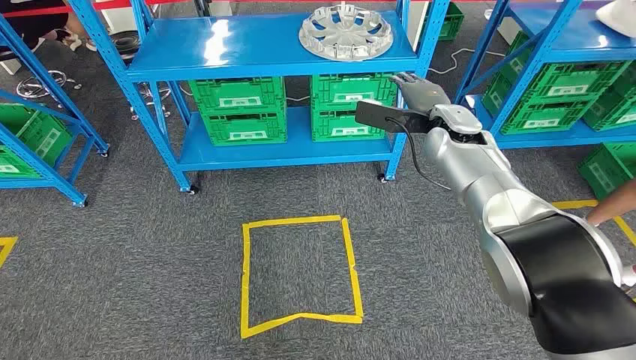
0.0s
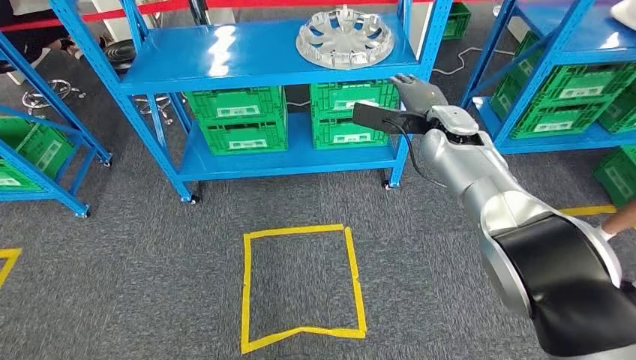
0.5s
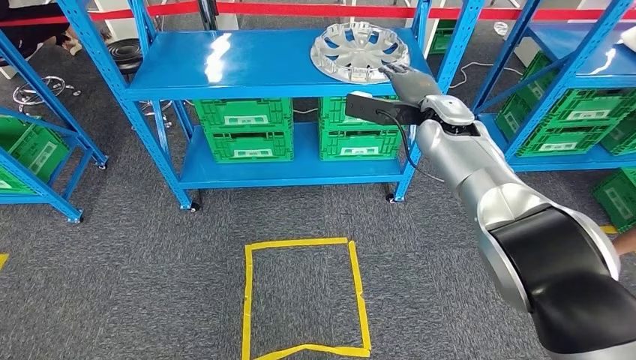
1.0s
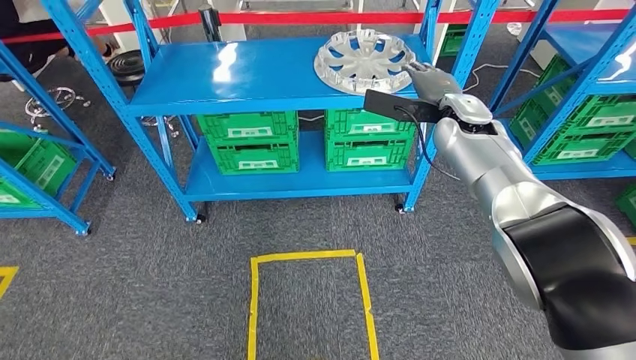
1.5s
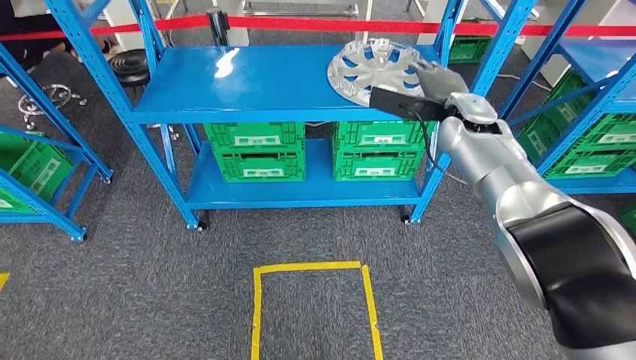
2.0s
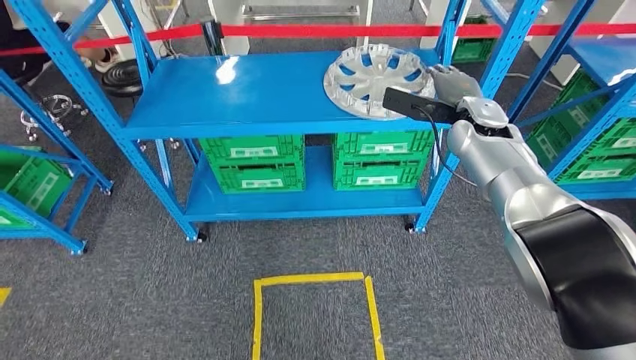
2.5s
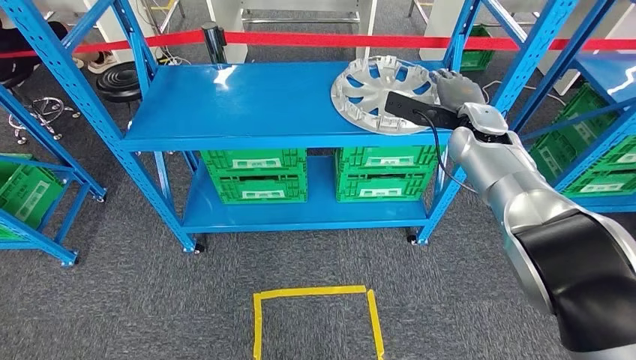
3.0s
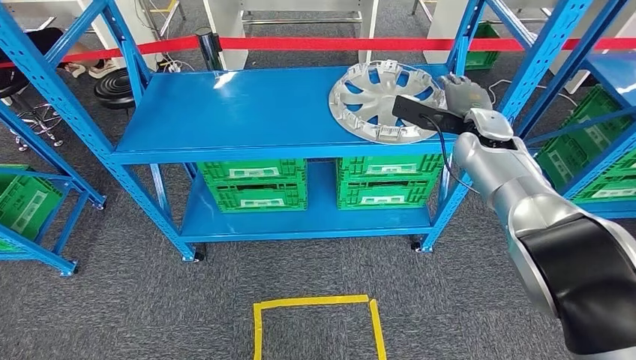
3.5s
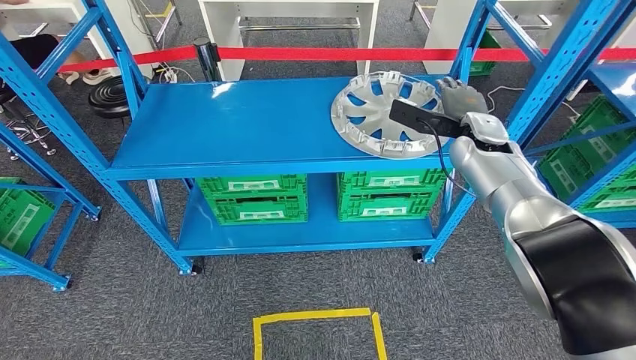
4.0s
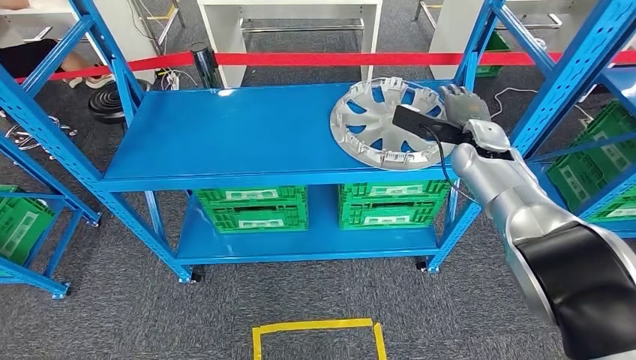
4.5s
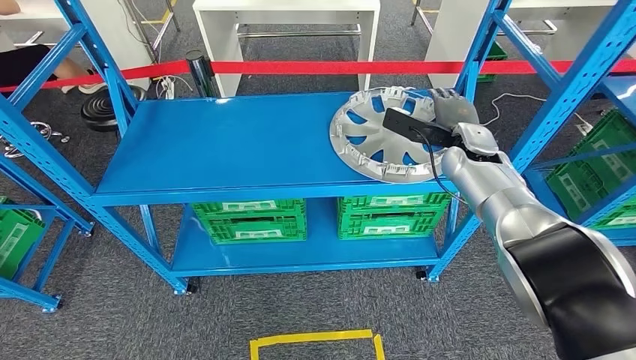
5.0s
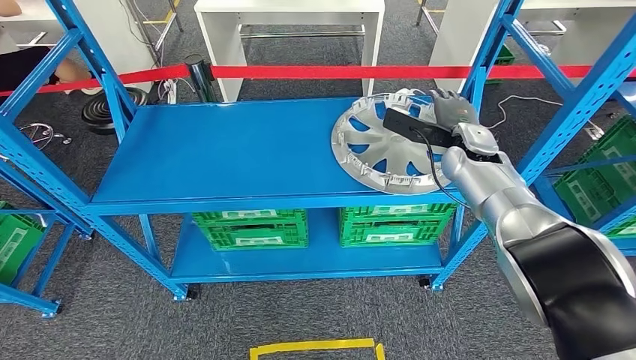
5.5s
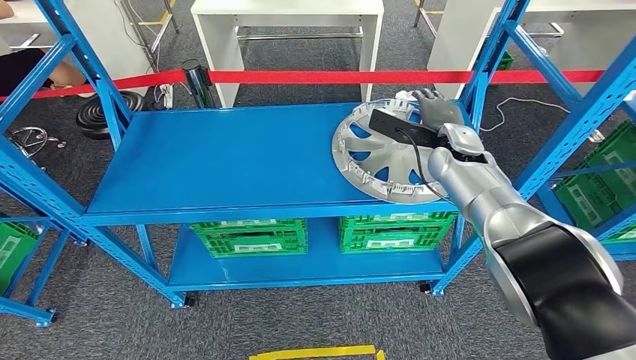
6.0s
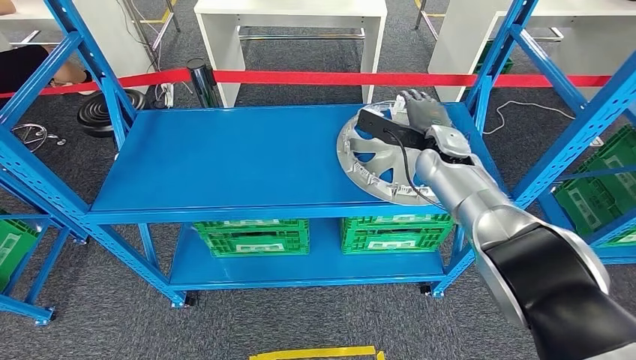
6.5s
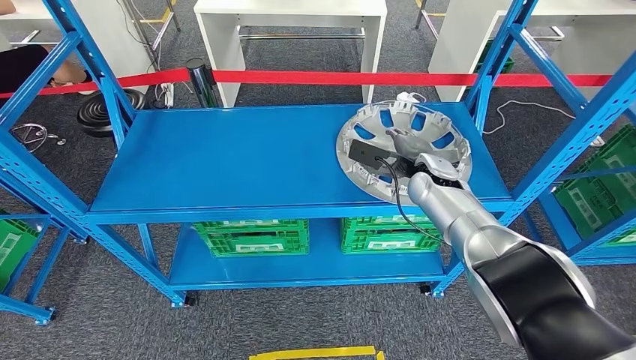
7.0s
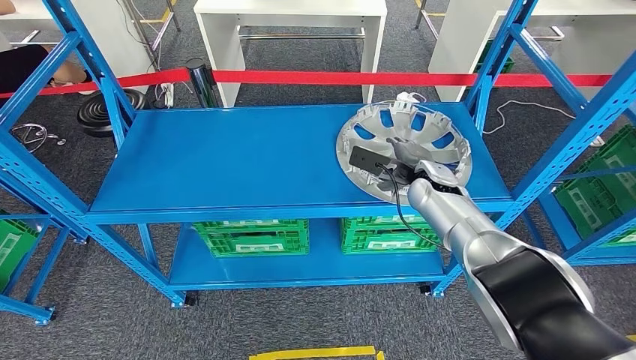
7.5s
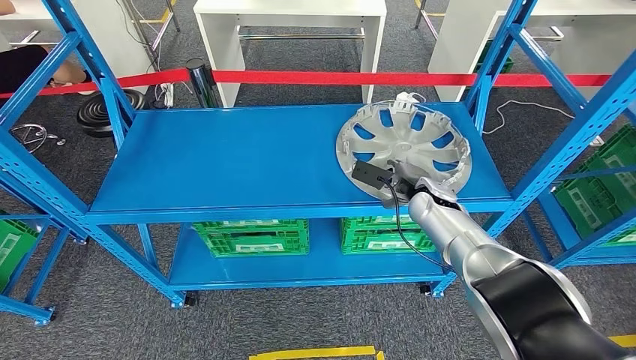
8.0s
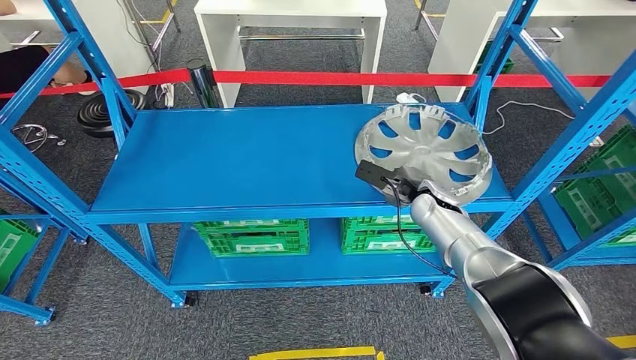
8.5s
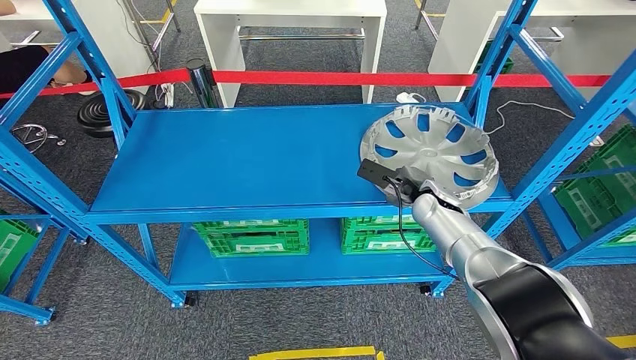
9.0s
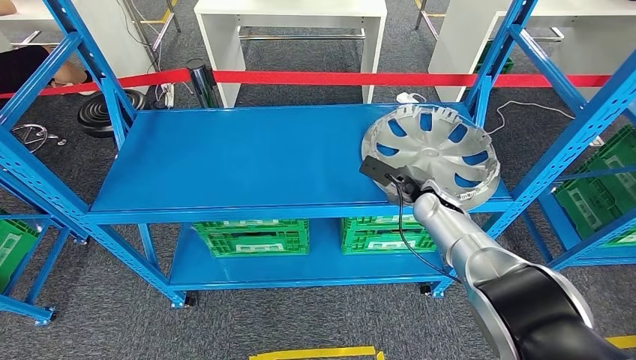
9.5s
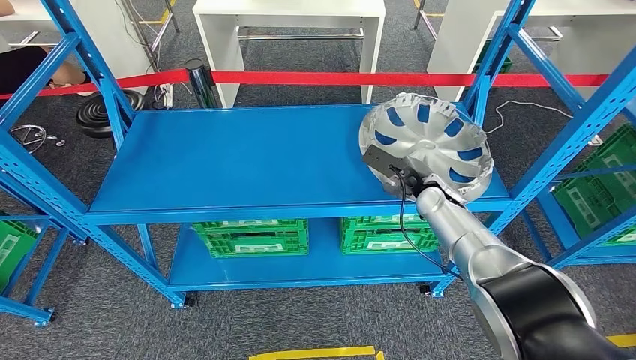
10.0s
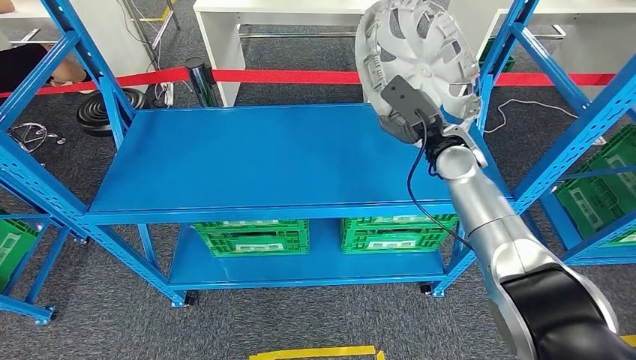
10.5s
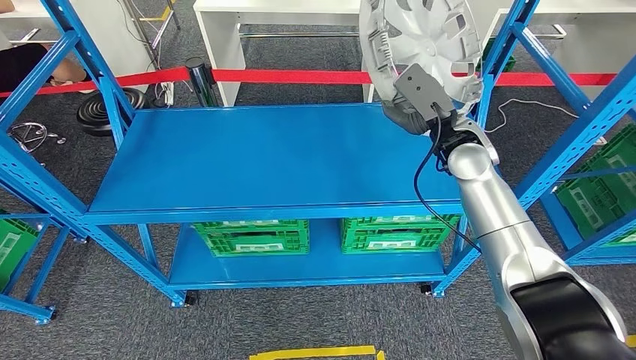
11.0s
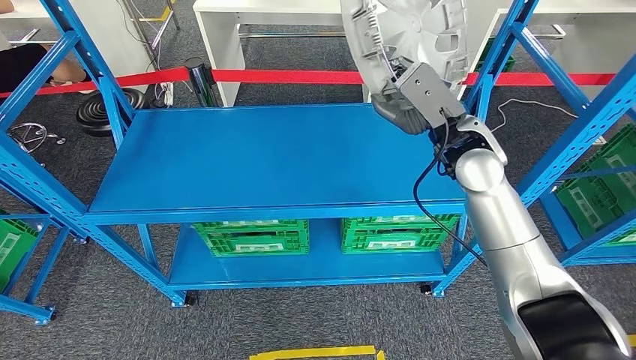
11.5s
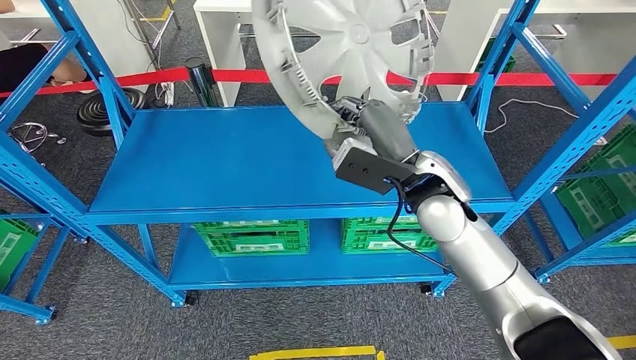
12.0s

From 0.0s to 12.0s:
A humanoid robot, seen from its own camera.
Step, from 0.0s to 10.0s: Take small components from the rack.
From 8.0s to 10.0s: The hands make only small movements.

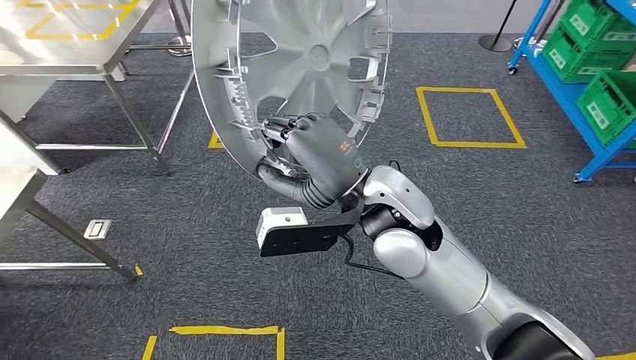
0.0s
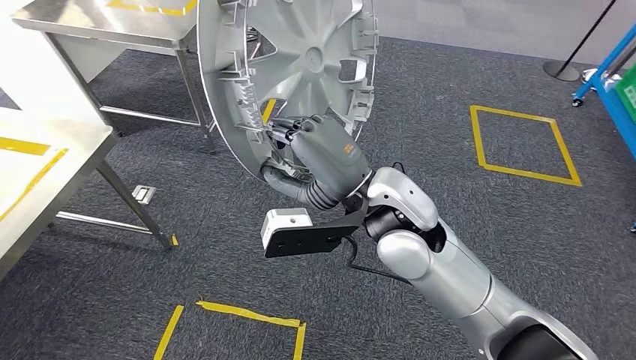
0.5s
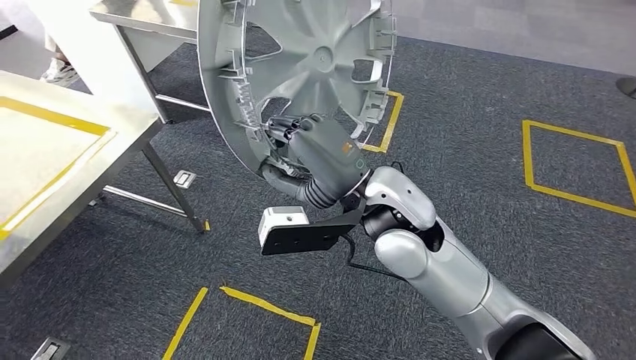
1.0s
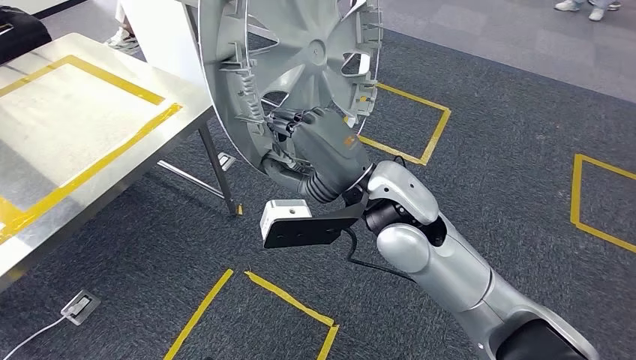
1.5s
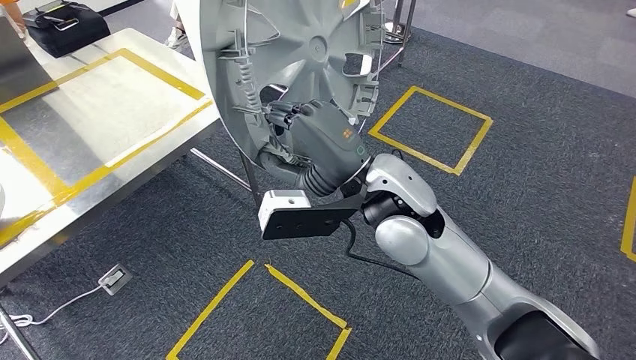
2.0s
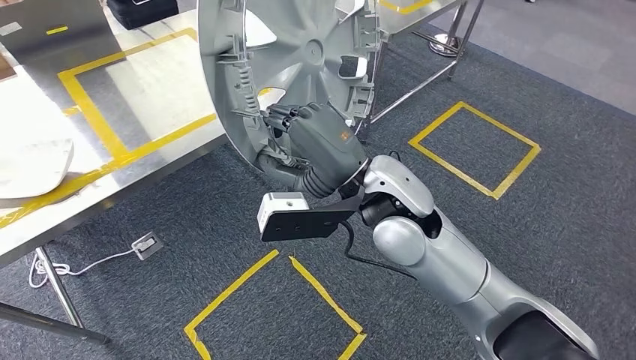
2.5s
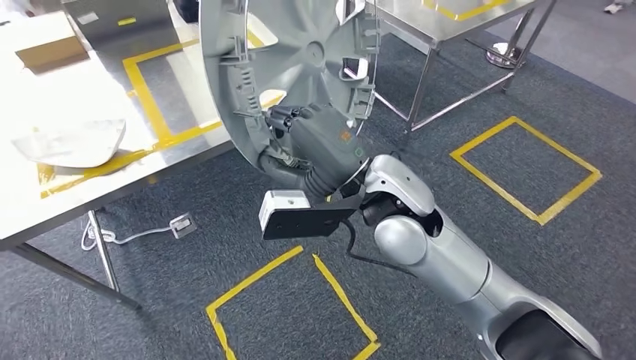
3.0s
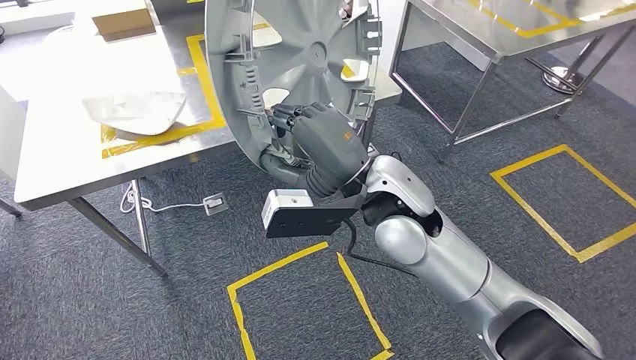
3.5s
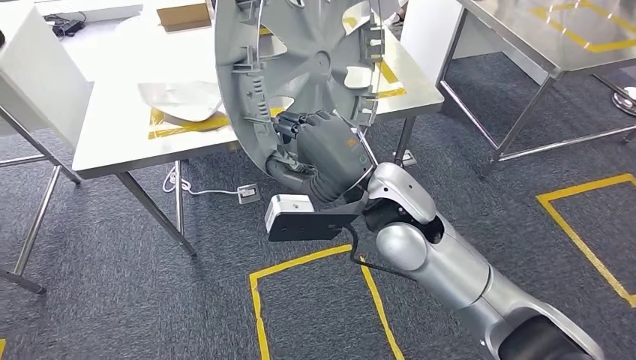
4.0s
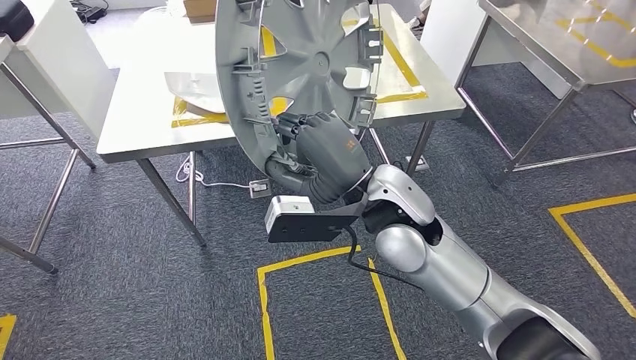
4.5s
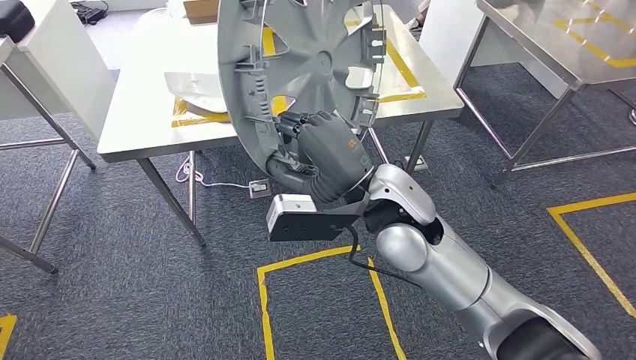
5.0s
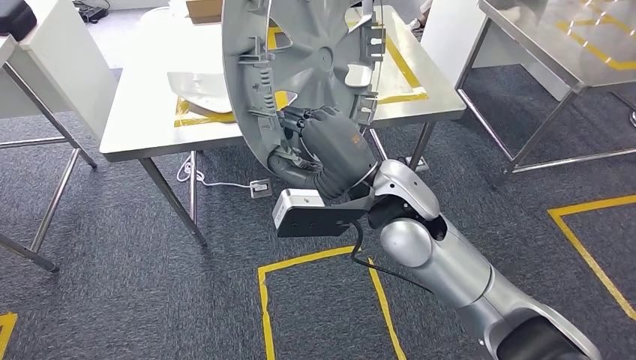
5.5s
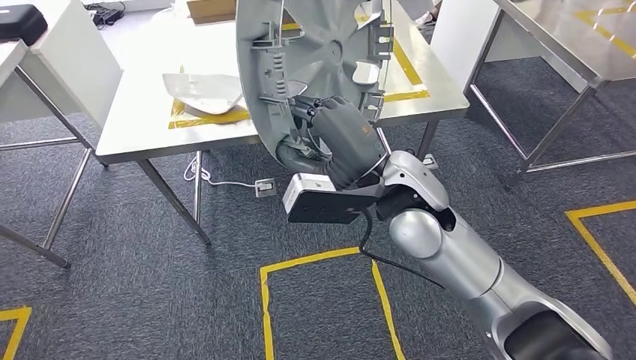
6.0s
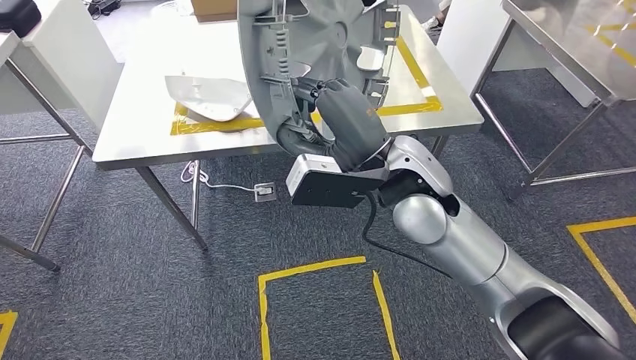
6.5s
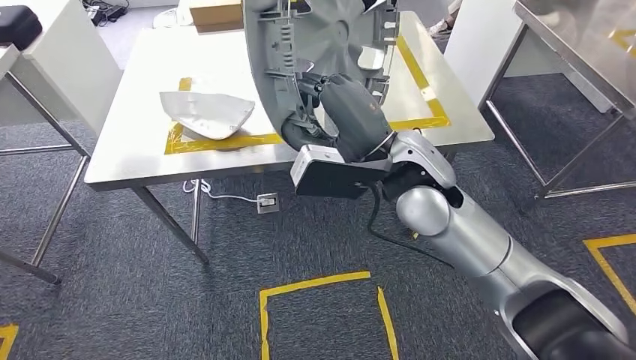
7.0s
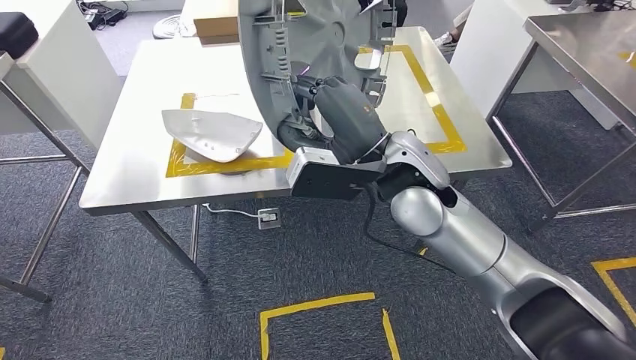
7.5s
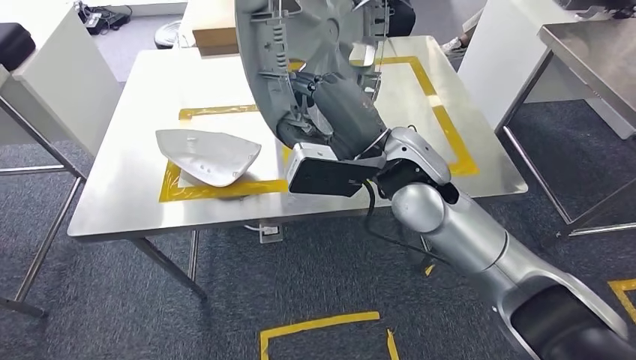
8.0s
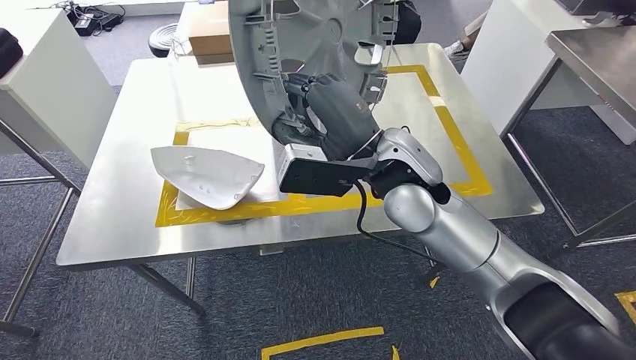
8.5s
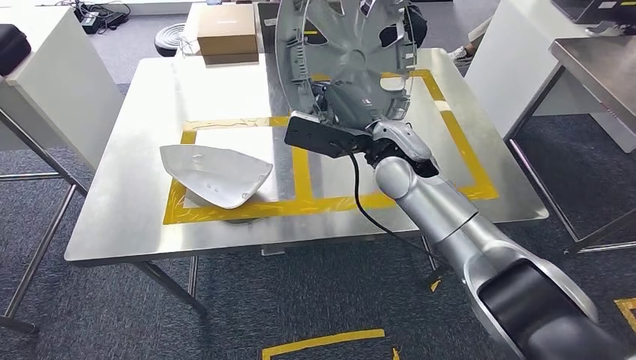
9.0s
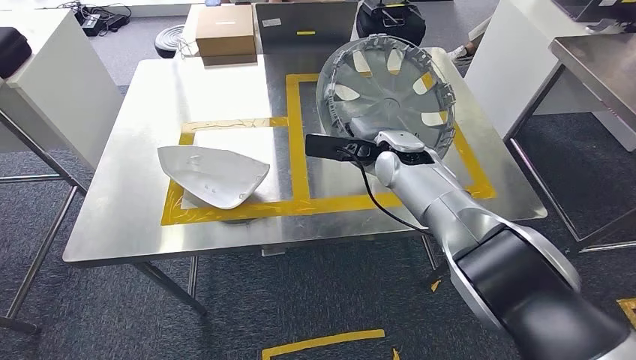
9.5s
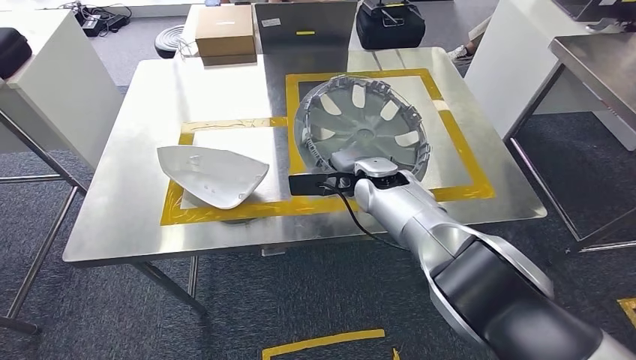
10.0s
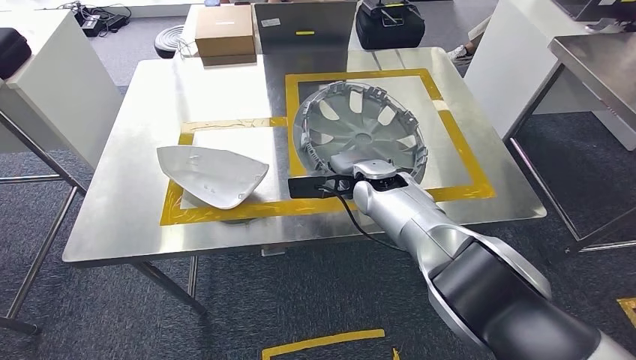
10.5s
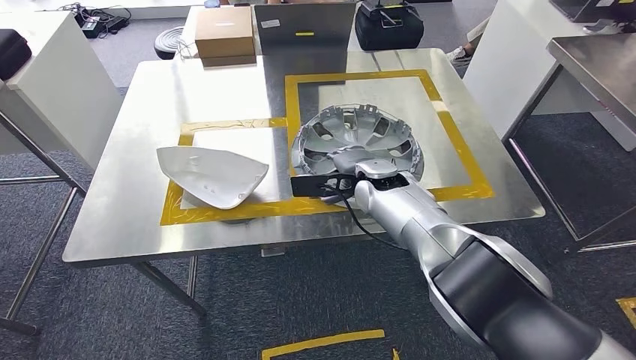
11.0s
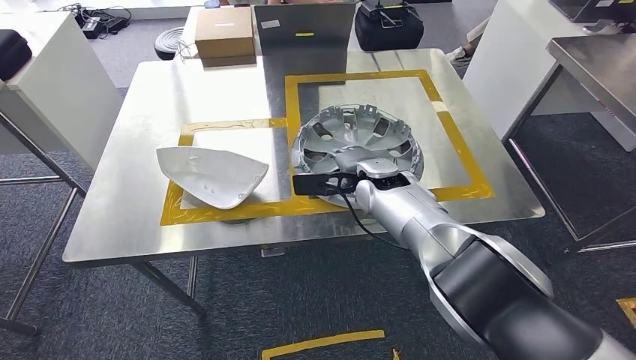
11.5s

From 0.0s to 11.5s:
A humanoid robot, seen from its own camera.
Step, from 0.0s to 4.0s: Move the small parts to the workbench.
From 9.5s to 11.5s: The right hand changes place by some 5 cm.
